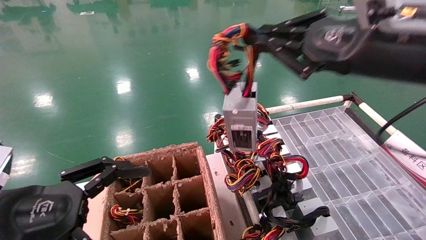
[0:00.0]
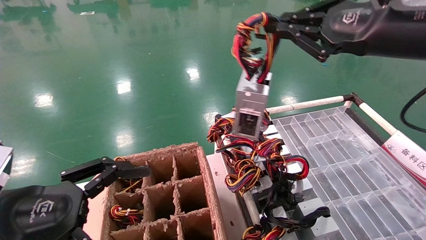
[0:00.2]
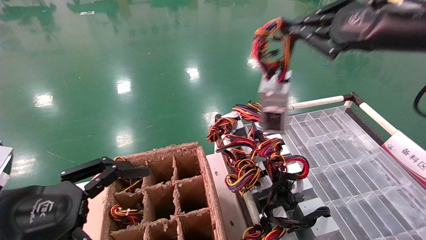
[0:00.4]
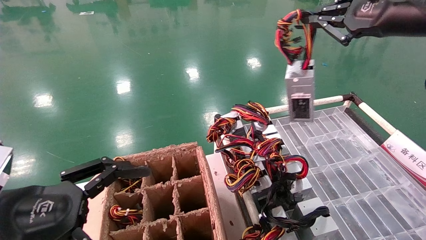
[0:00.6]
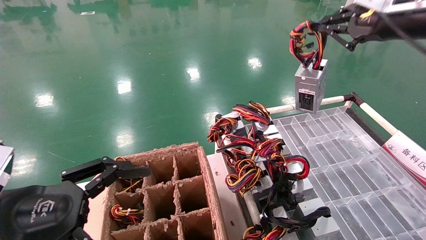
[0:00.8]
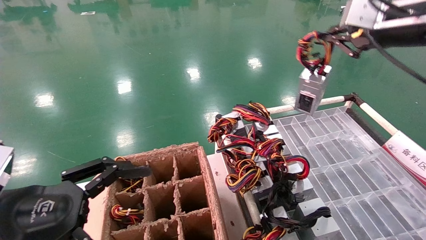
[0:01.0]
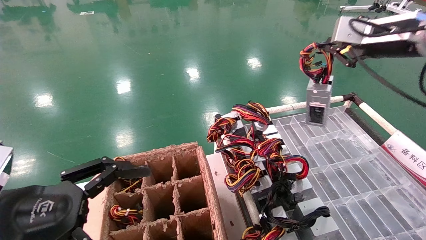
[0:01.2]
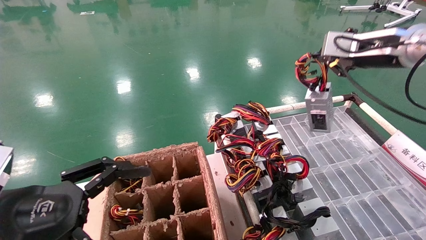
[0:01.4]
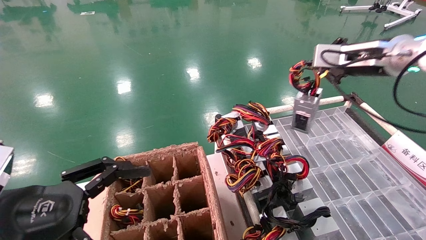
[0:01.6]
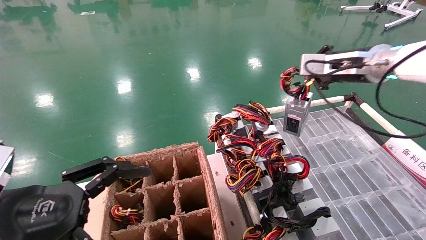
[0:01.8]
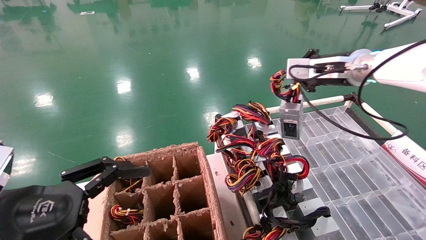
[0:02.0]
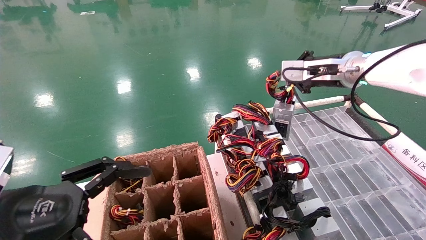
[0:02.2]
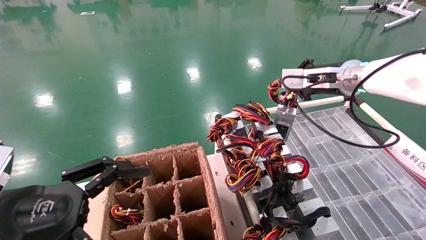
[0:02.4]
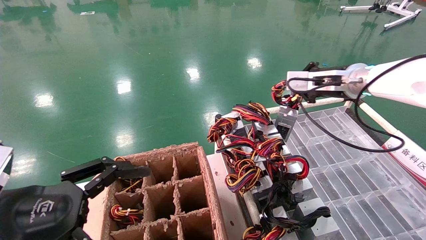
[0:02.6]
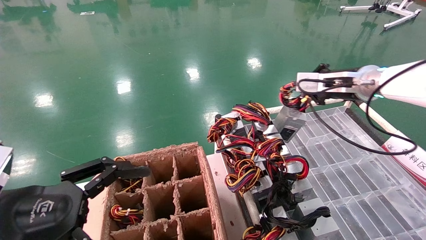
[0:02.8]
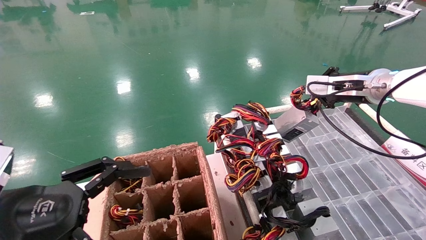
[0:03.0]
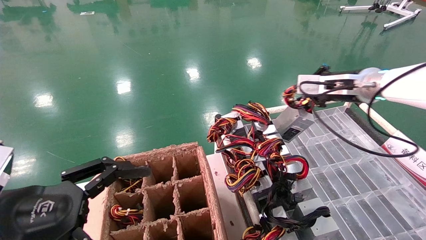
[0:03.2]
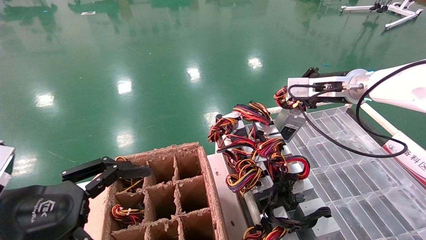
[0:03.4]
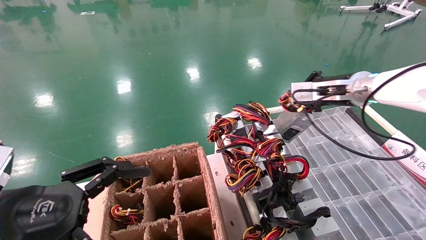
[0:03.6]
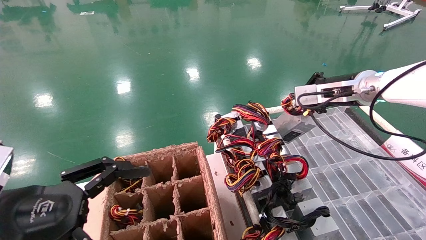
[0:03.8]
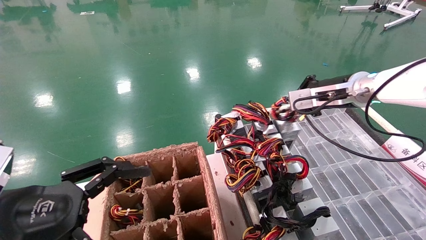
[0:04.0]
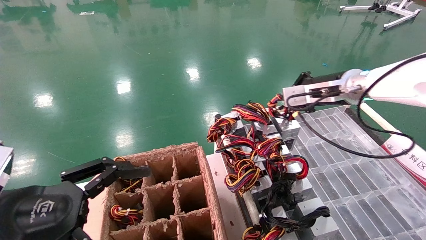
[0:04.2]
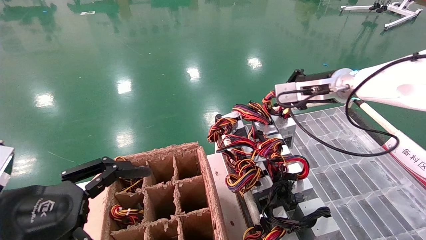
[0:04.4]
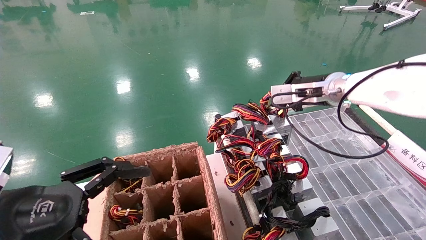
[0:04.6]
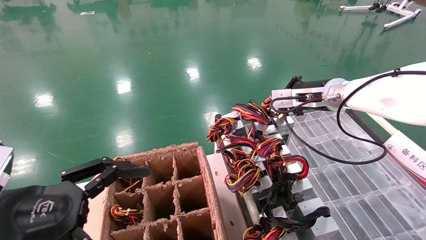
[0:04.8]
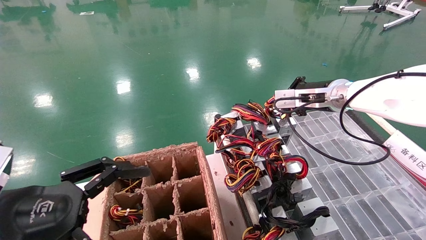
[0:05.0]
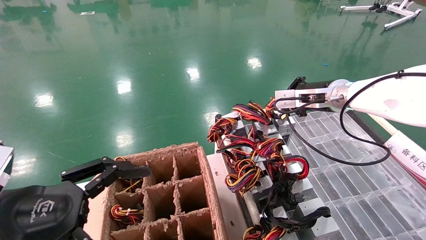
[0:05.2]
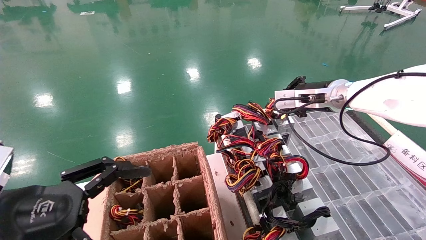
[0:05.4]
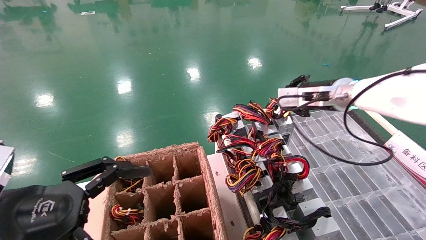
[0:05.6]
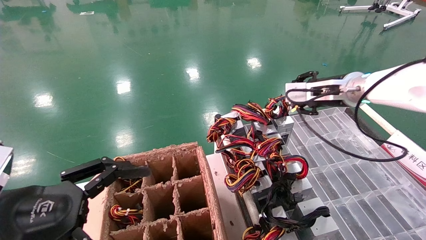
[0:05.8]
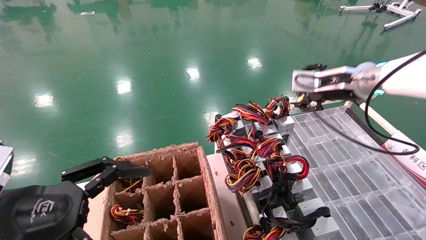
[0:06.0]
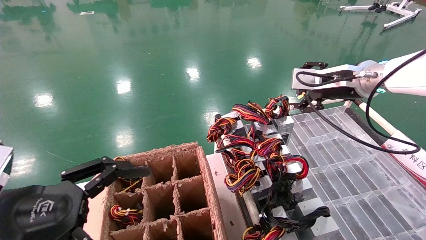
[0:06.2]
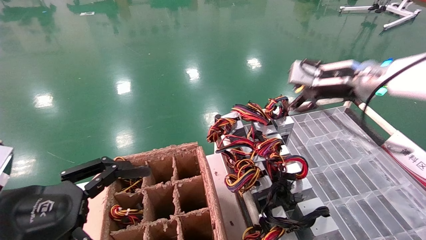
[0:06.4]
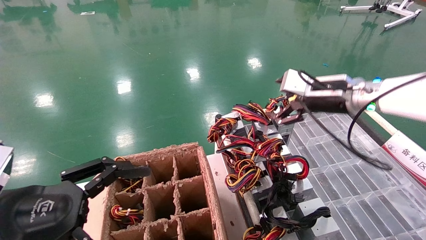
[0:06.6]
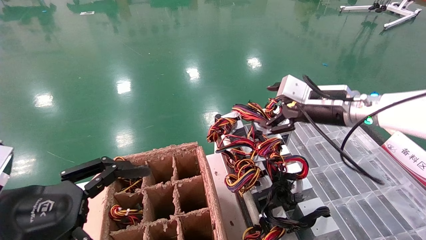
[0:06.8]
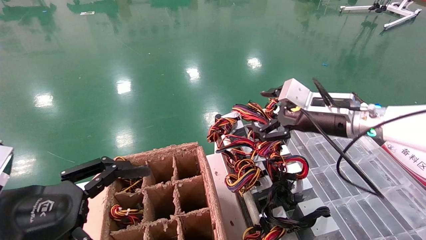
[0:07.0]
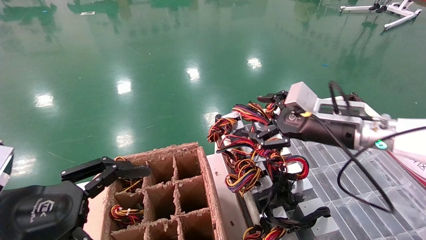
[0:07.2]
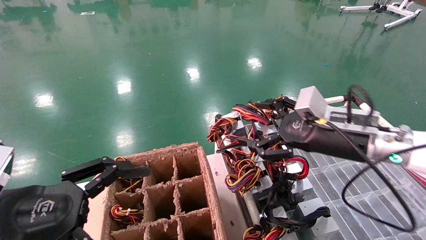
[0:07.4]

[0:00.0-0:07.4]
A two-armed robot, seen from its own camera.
Step, 0:00.0 to 0:05.4: Place the power supply on the operating table.
0:00.0 to 0:01.4: The right gripper goes roughly 15 cm forward and to the right.
0:01.4 to 0:03.0: The right gripper heads downward and forward, covering some 10 cm.
0:03.0 to 0:04.4: The right gripper shifts about 5 cm to the left.
0:04.4 to 0:06.0: The right gripper opens its fingers.
0:06.0 to 0:07.4: The right gripper shifts about 10 cm downward and backward, and opens up.

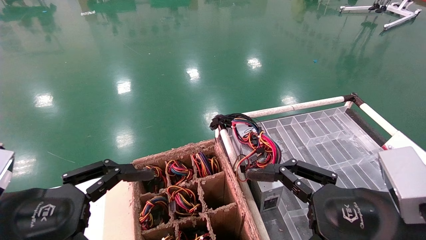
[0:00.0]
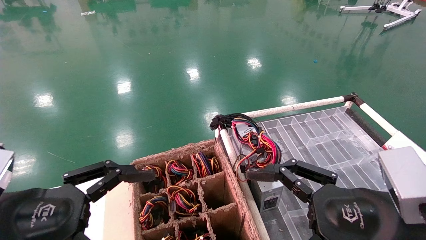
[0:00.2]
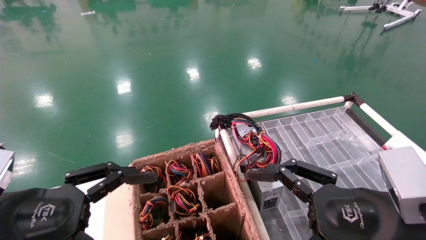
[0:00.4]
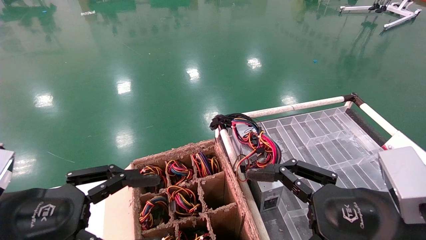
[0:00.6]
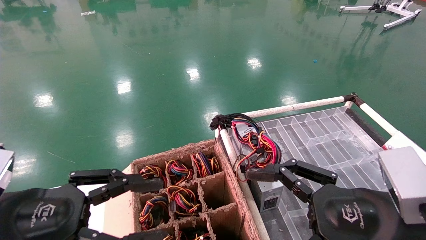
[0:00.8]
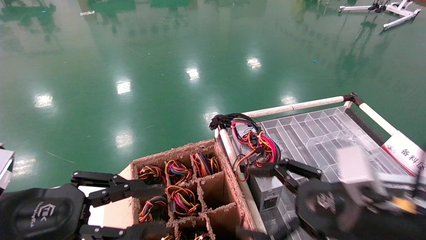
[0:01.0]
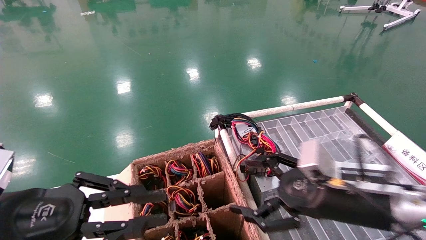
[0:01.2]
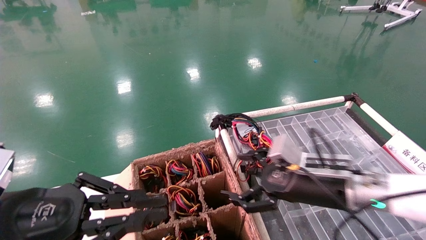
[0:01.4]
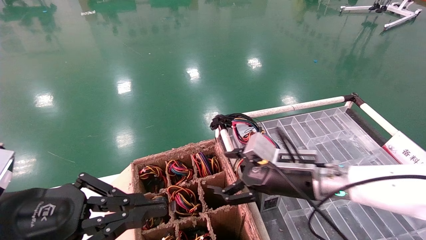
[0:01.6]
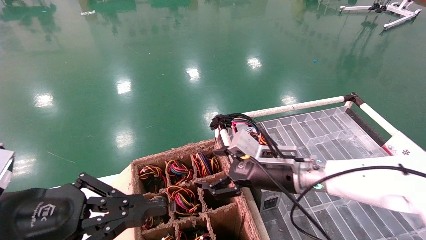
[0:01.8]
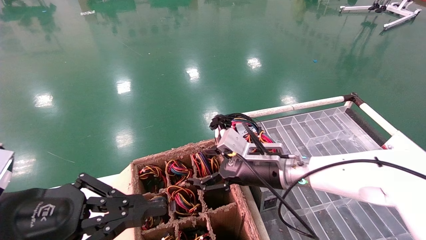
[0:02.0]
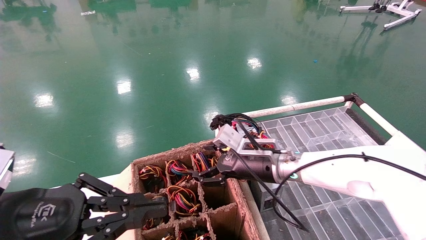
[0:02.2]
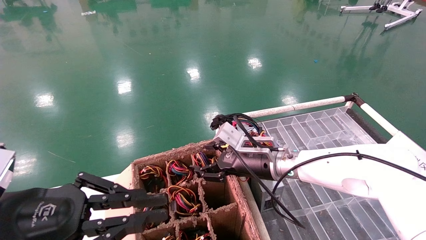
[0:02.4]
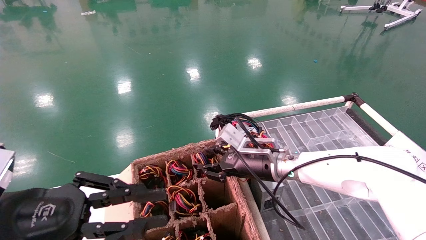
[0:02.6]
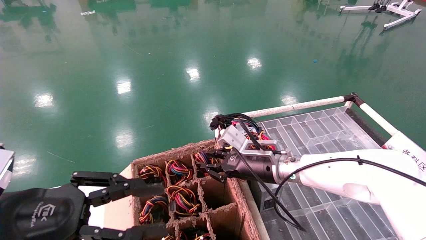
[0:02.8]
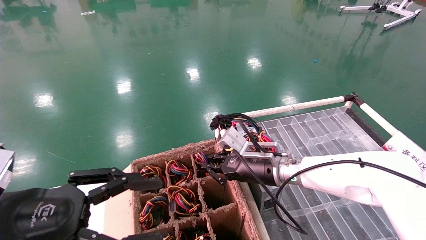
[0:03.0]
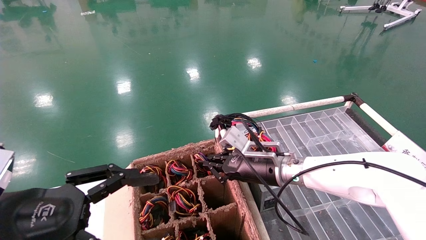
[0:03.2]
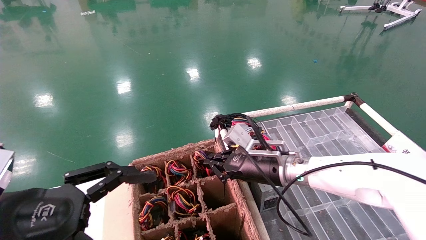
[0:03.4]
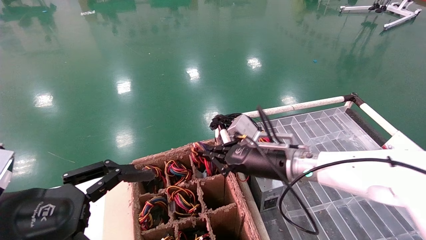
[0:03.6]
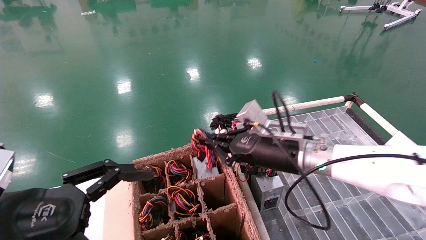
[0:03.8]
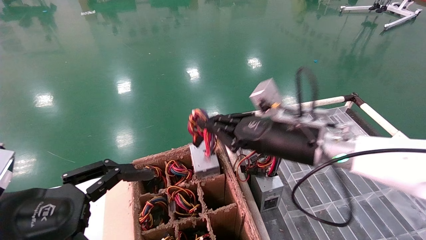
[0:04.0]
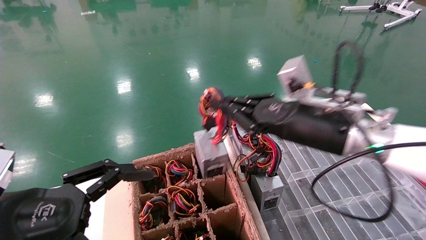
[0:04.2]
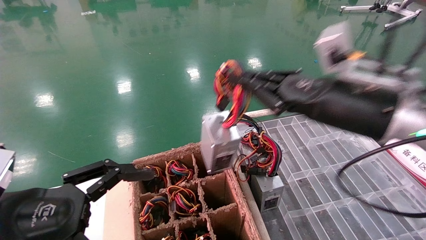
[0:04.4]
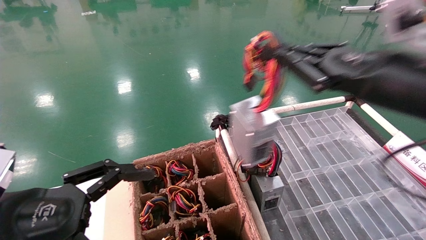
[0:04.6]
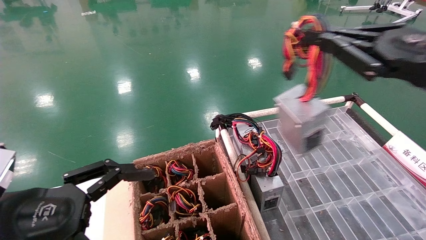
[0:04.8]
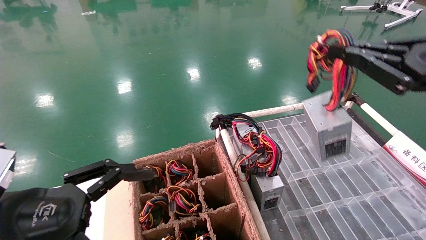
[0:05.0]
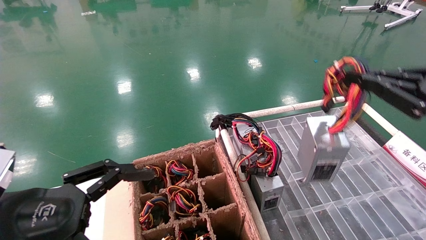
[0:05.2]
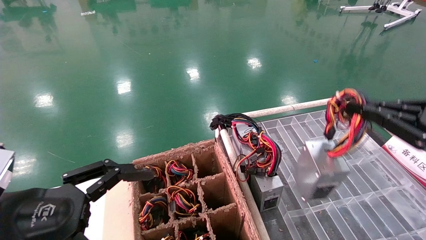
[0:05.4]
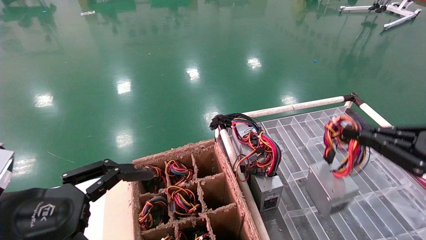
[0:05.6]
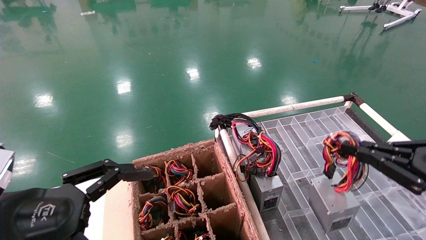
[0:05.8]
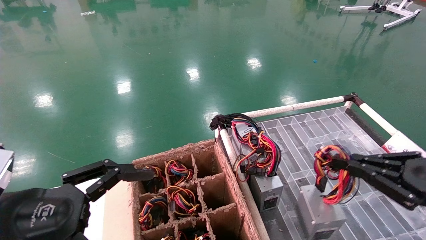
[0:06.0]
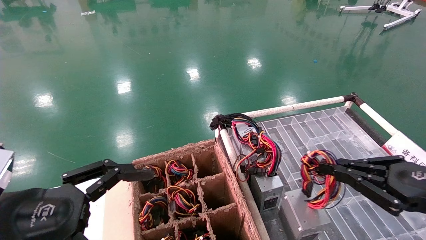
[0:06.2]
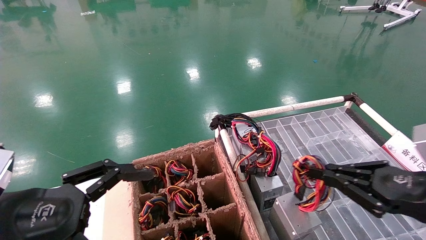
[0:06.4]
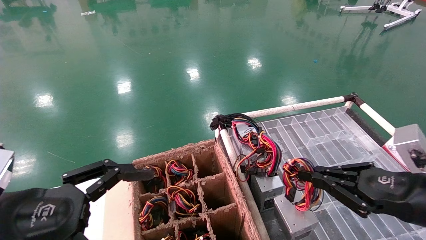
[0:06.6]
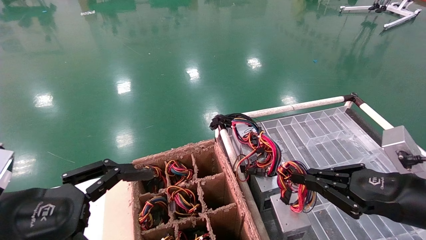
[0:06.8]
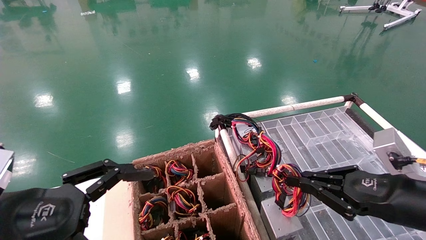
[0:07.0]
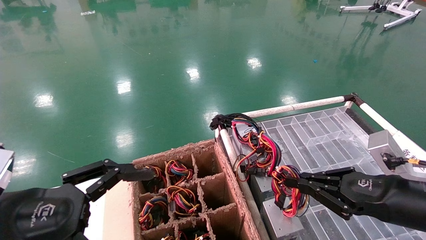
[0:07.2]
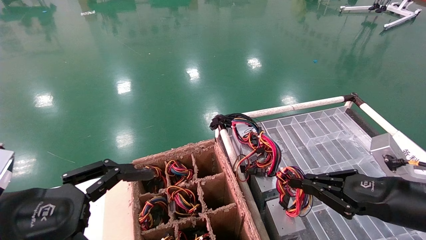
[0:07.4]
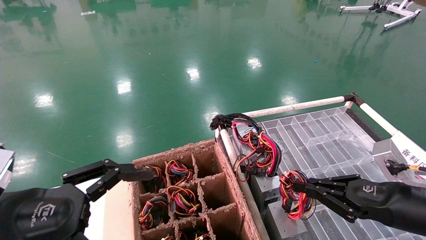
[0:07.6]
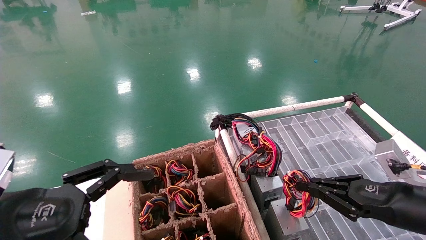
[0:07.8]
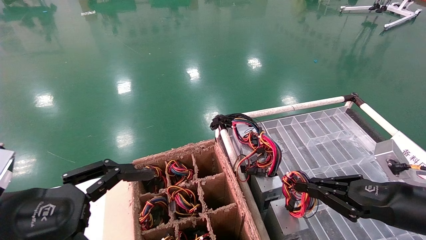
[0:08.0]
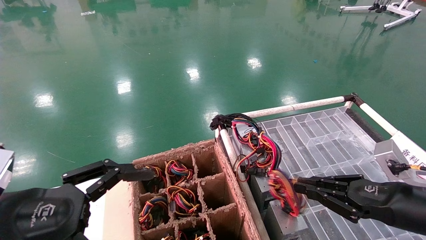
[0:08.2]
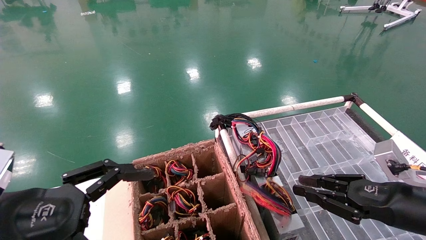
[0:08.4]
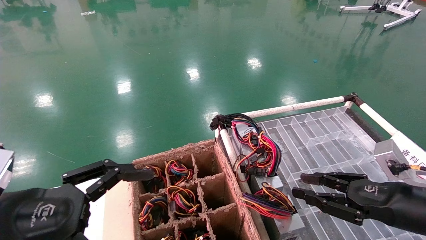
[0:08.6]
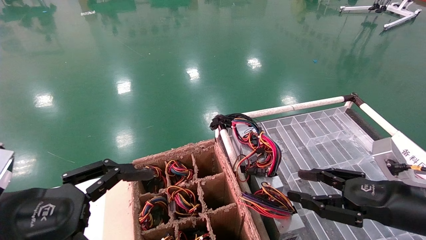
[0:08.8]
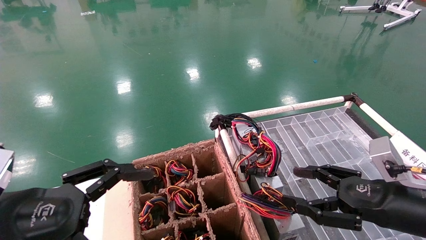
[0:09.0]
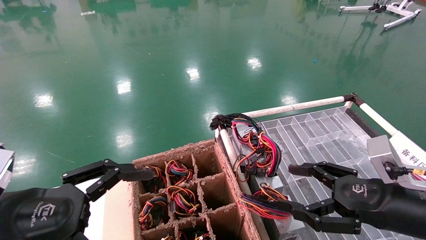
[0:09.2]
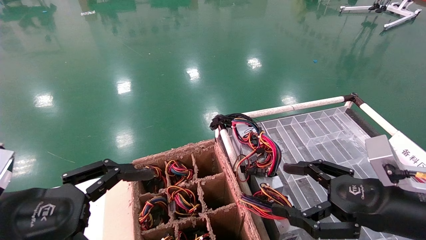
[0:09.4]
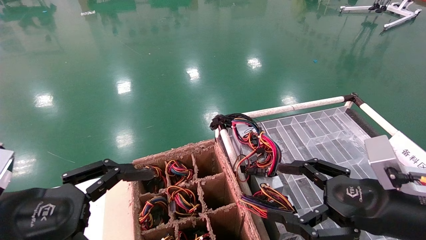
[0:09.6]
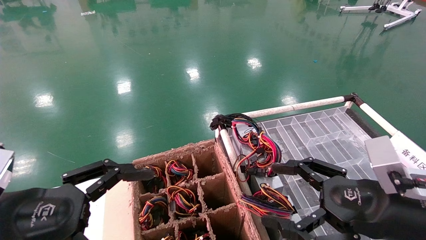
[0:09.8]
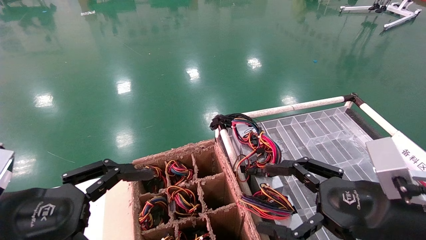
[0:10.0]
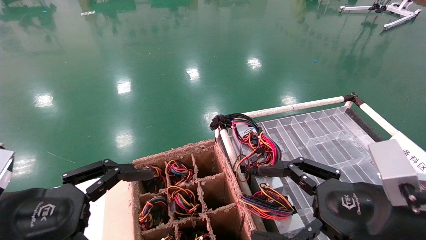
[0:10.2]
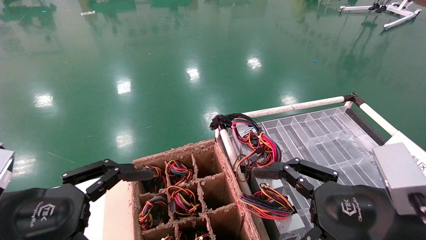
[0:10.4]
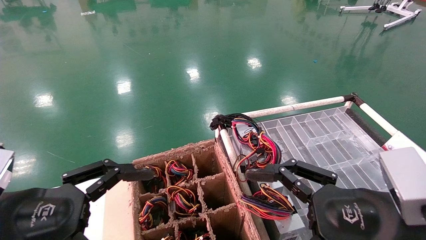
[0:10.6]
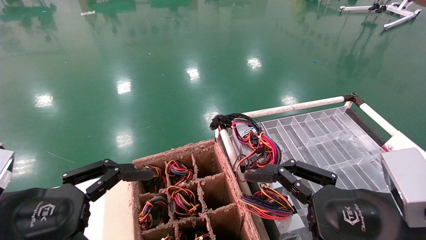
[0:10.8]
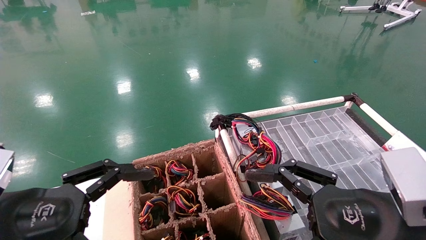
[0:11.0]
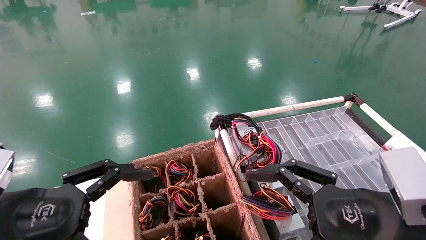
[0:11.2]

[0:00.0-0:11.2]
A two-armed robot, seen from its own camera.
Step, 0:00.6 to 0:03.2: Grab and lift the power supply from the large box.
Step, 0:03.4 to 0:08.2: Place the power supply on the operating table.
0:00.0 to 0:01.6: The left gripper closes its fingers; the right gripper moves forward, about 15 cm.
0:01.6 to 0:03.2: The right gripper shifts approximately 5 cm forward, and closes up, while the left gripper opens its fingers.
0:03.2 to 0:04.8: The left gripper opens; the right gripper goes roughly 30 cm backward, upward and to the right.
0:04.8 to 0:06.4: The right gripper moves downward, about 15 cm.
0:06.4 to 0:08.0: The right gripper moves approximately 5 cm.
0:08.0 to 0:09.6: The right gripper moves to the left, approximately 5 cm, and opens up.
0:09.6 to 0:11.2: The right gripper ends up some 5 cm from where it was.
